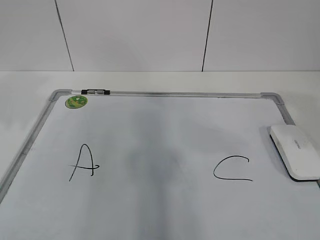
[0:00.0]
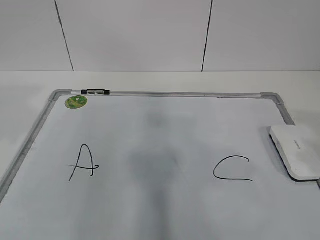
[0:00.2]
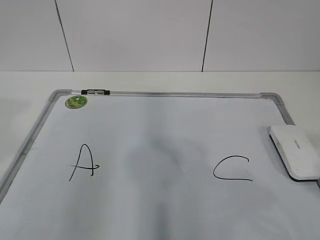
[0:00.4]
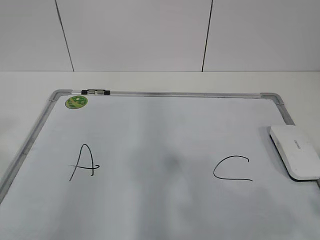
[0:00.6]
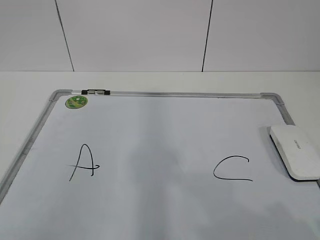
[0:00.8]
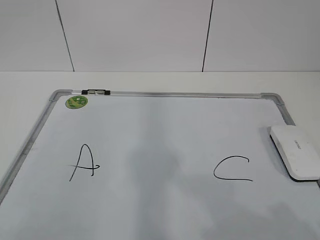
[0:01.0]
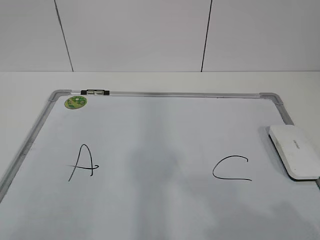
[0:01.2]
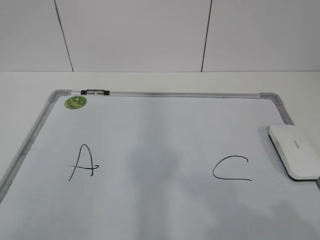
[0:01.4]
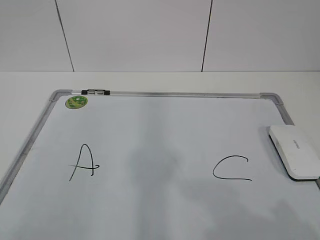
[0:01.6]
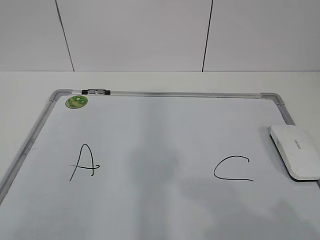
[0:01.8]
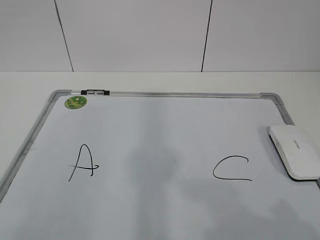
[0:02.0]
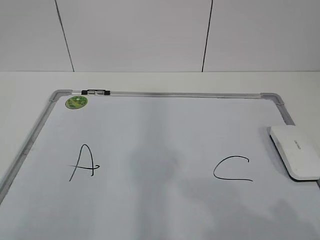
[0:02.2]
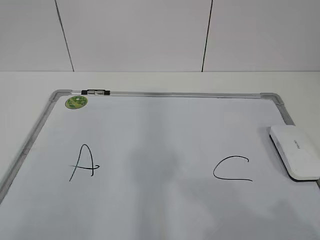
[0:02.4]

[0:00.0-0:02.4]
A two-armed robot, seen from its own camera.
Task of the whole recording: pick up the eraser on the blackboard and erase the letter "B".
0:00.0 to 0:01.2: The right gripper moves backward and downward, approximately 15 cm. Meanwhile the left gripper moves backward, roughly 25 cm.
0:01.2 to 0:02.4: Both grippers stay about where they are.

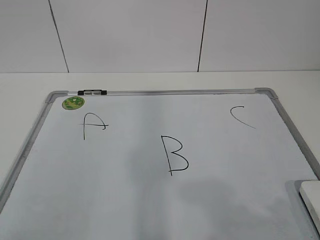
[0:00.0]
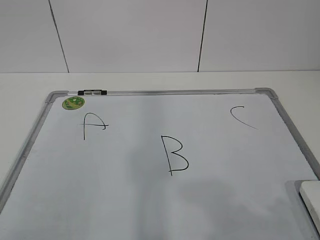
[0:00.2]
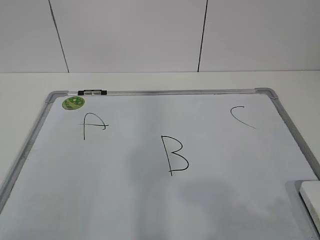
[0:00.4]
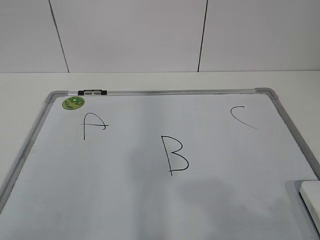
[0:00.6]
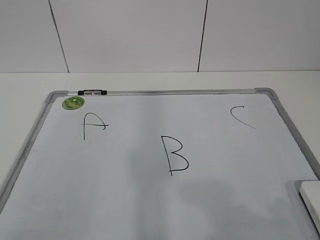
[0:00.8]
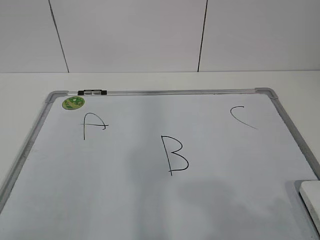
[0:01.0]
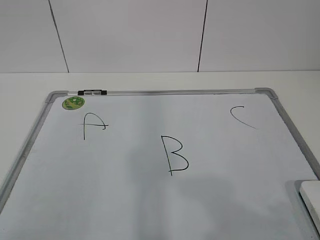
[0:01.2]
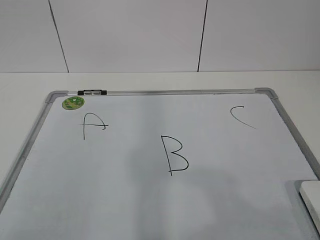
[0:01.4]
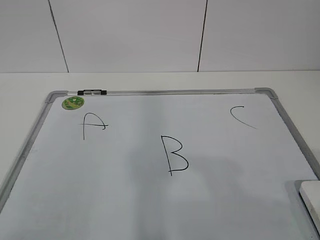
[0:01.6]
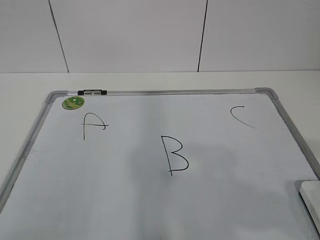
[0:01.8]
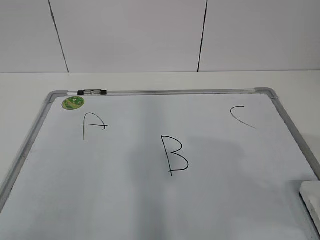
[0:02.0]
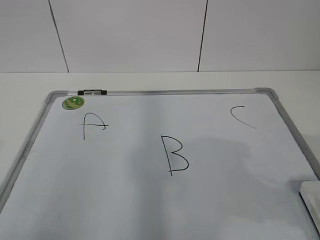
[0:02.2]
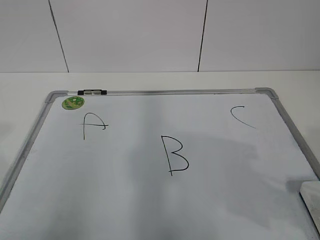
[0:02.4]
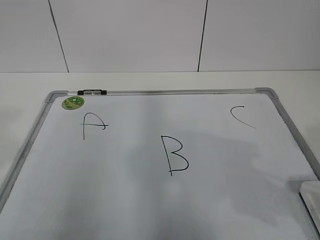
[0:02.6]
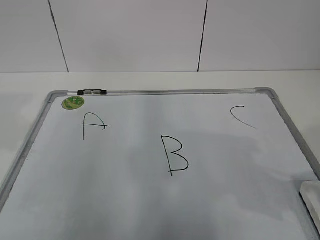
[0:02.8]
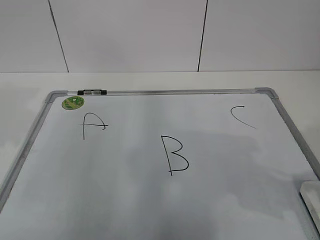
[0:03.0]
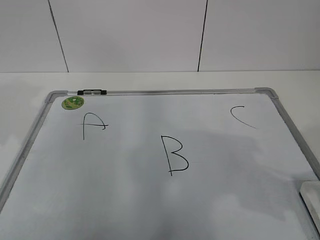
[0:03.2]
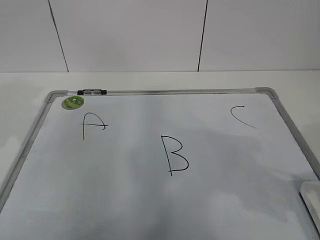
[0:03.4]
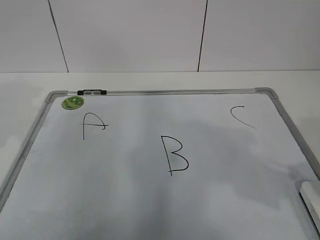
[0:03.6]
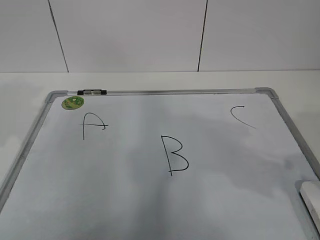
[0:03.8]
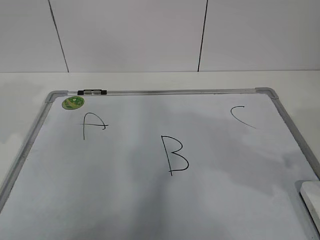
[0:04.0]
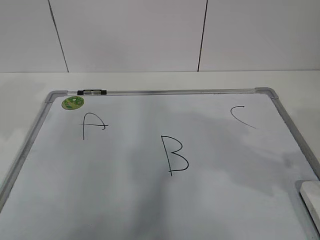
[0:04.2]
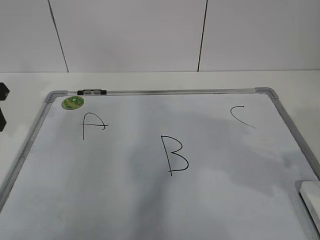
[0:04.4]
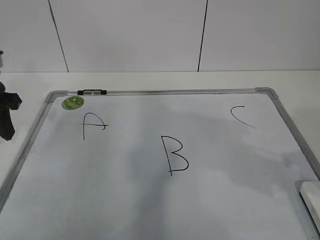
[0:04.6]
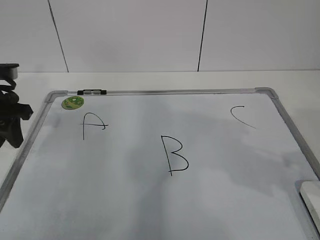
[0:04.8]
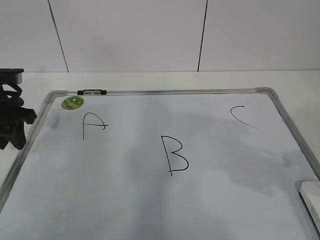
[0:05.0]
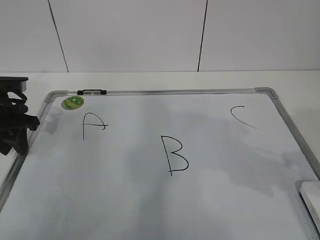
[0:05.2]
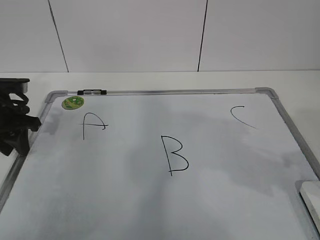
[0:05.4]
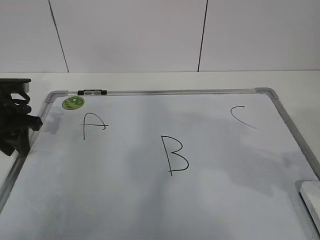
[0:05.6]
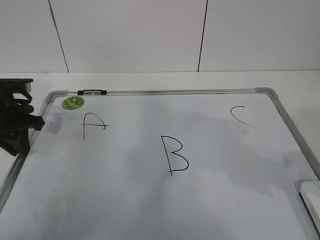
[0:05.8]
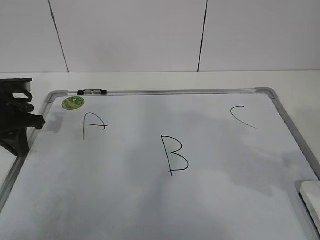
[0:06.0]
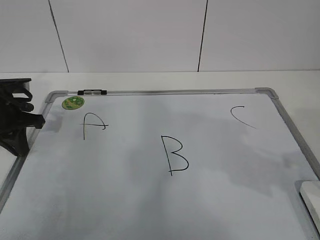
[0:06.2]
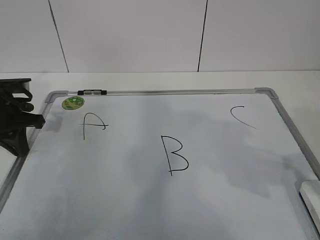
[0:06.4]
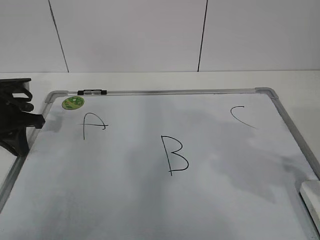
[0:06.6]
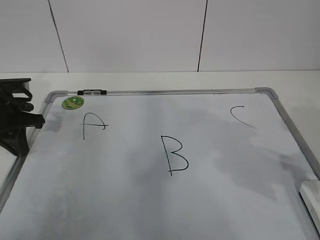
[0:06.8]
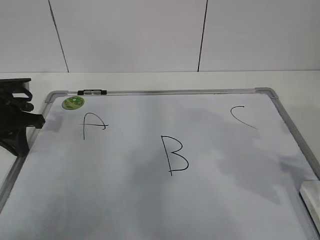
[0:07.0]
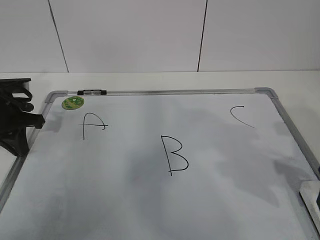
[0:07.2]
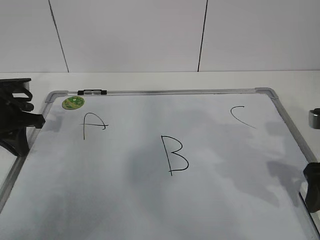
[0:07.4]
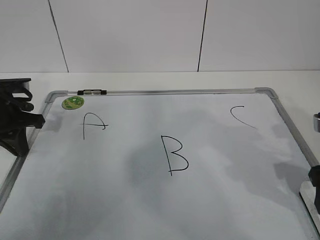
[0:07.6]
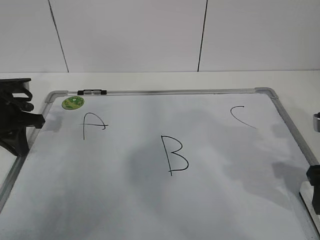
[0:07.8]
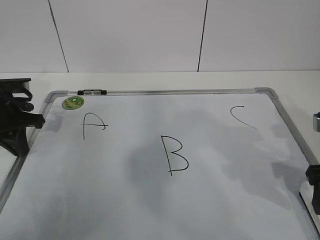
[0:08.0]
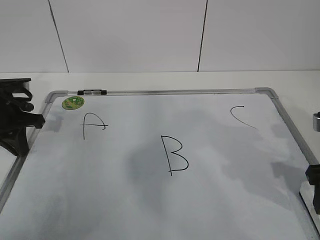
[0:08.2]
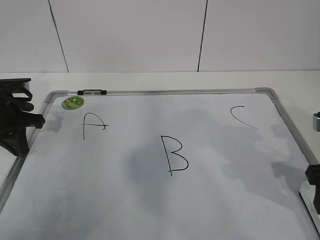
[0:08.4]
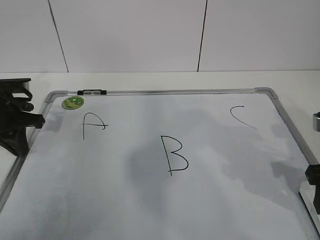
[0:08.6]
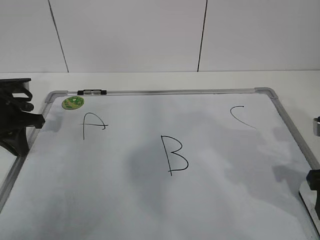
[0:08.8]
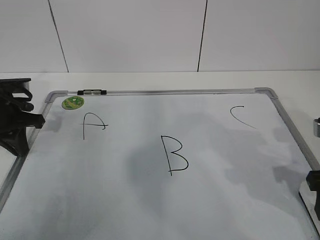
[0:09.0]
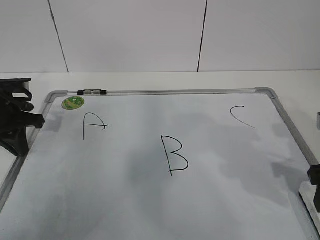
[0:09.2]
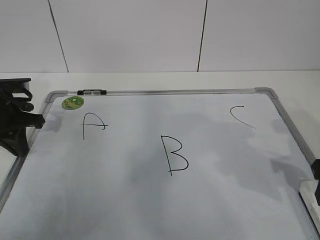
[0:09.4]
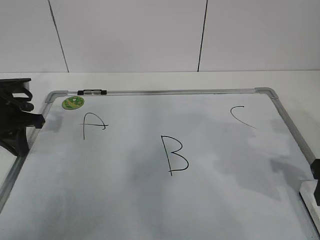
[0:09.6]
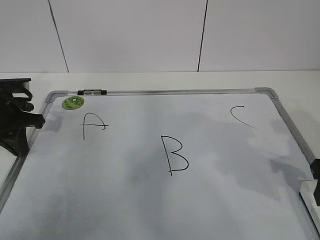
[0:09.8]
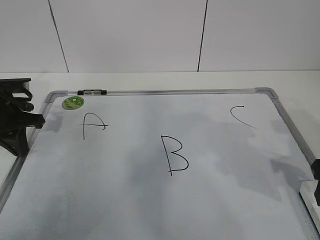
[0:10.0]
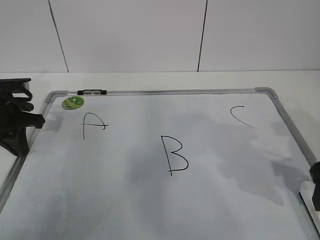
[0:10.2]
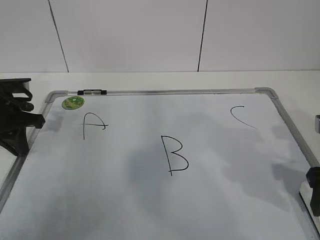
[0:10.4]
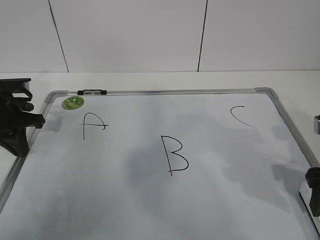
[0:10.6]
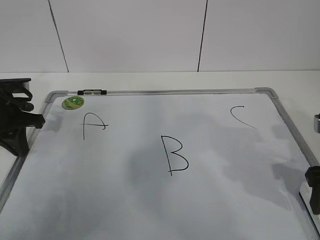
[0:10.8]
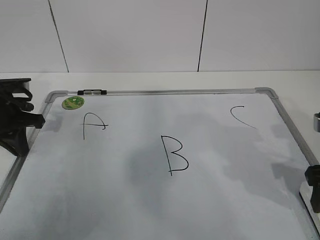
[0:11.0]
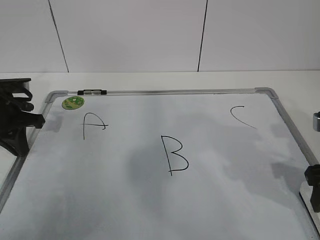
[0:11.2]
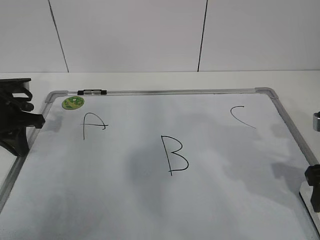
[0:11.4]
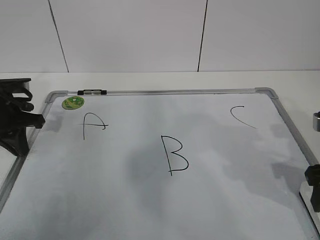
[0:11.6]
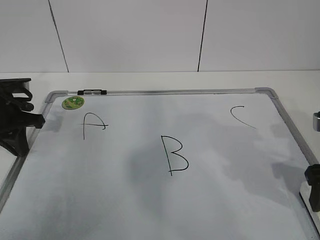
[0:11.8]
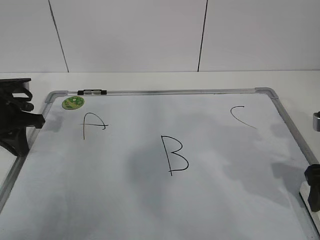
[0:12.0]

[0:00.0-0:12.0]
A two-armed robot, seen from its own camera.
Task of the whole recording: pick up the eraser on the blackboard and erase the letter "B".
Step, 0:00.0 to 0:04.8: Hold the drawing board steady with your left hand.
Step, 0:05.0 to 0:10.6: Grab the eraser with your right hand.
0:01.6 to 0:03.0: The right gripper shifts approximately 10 cm forward, while the left gripper goes some 20 cm forward.
0:03.0 to 0:04.4: The left gripper shifts approximately 10 cm forward.
0:04.4 to 0:06.0: The left gripper goes some 10 cm downward and forward, and closes its fingers.
0:06.0 to 0:07.6: The right gripper heads downward, covering approximately 5 cm, and opens its fingers.

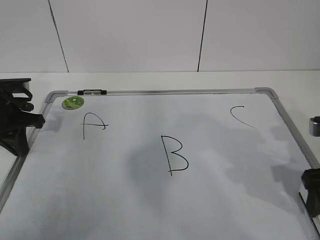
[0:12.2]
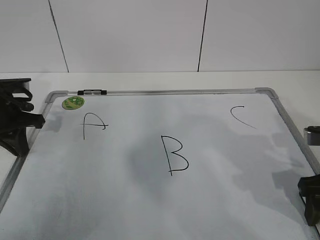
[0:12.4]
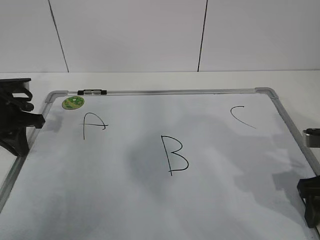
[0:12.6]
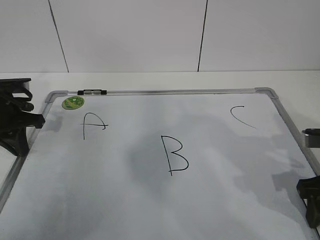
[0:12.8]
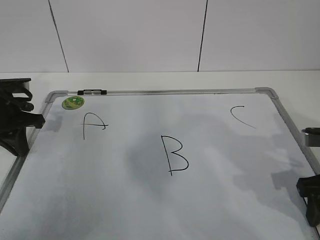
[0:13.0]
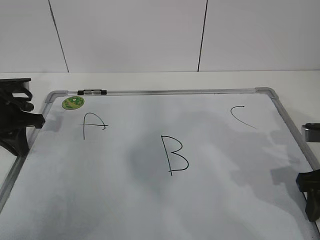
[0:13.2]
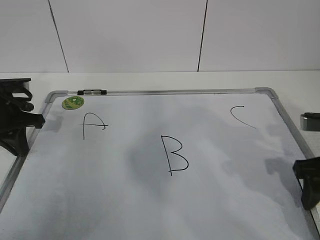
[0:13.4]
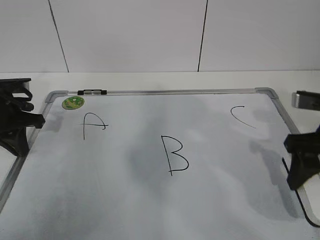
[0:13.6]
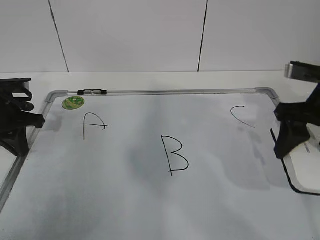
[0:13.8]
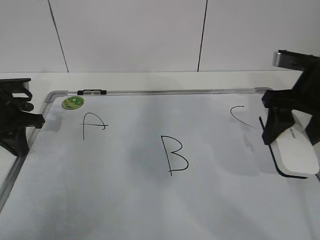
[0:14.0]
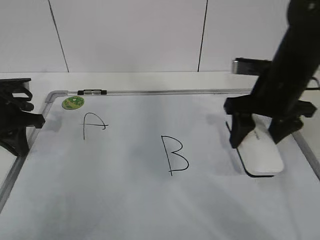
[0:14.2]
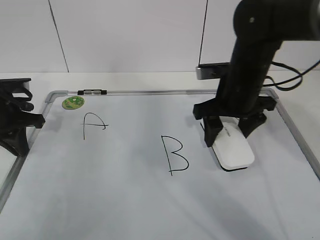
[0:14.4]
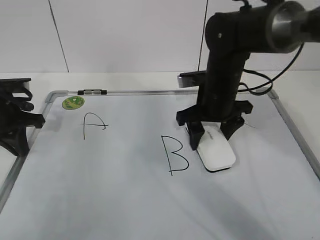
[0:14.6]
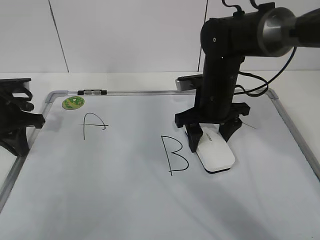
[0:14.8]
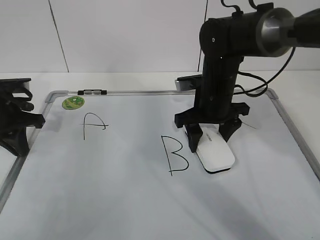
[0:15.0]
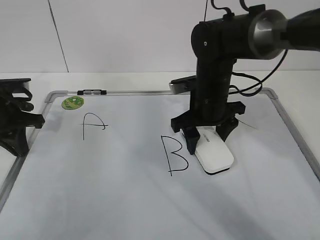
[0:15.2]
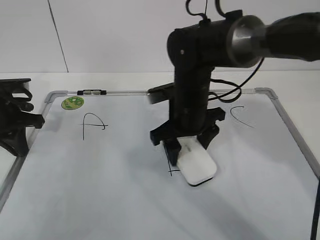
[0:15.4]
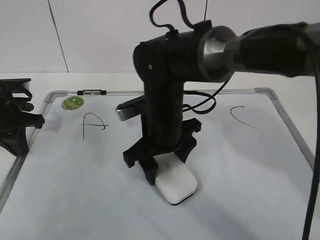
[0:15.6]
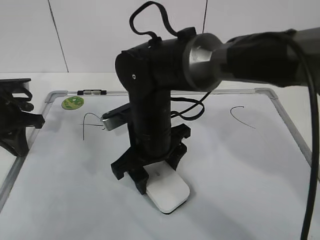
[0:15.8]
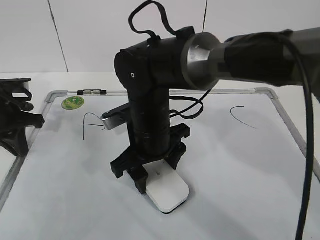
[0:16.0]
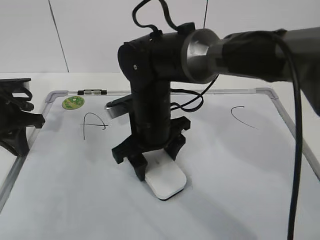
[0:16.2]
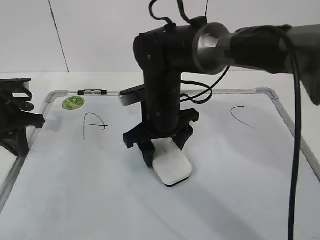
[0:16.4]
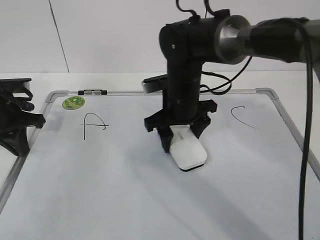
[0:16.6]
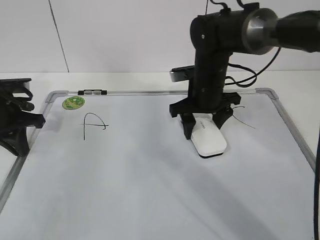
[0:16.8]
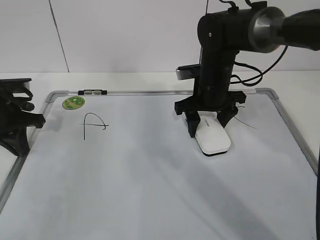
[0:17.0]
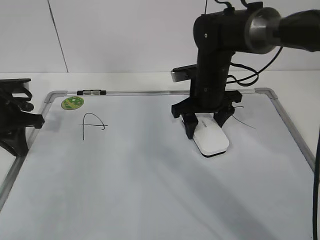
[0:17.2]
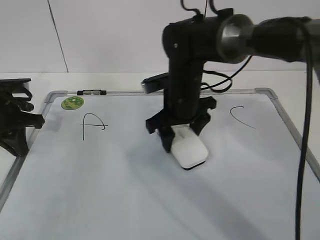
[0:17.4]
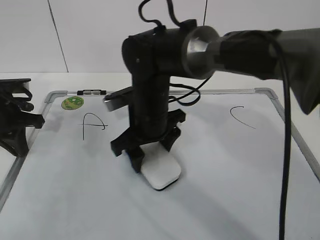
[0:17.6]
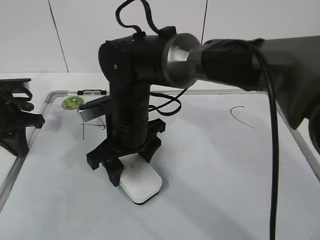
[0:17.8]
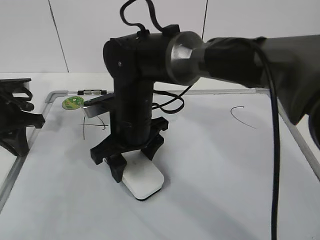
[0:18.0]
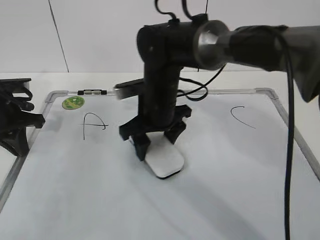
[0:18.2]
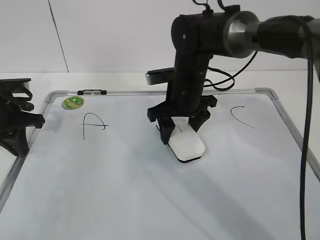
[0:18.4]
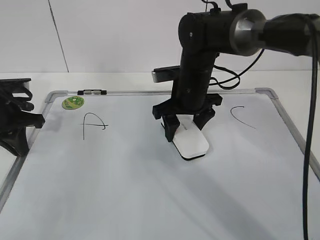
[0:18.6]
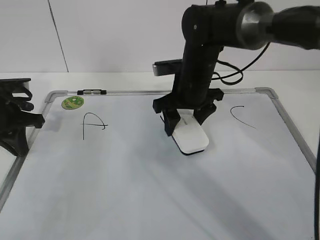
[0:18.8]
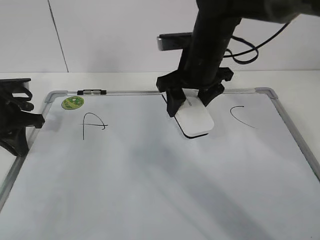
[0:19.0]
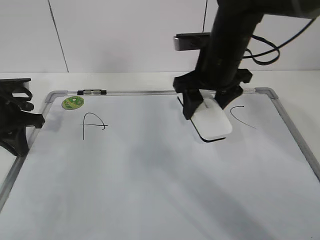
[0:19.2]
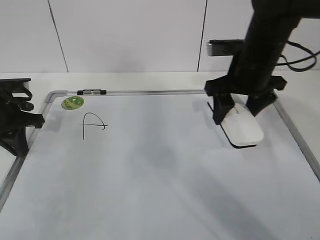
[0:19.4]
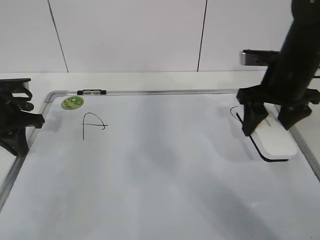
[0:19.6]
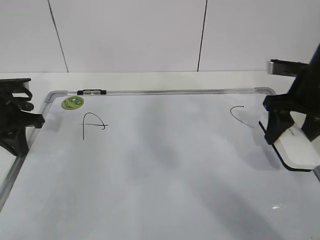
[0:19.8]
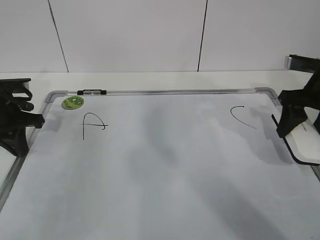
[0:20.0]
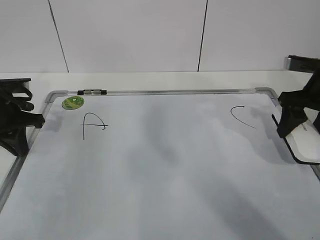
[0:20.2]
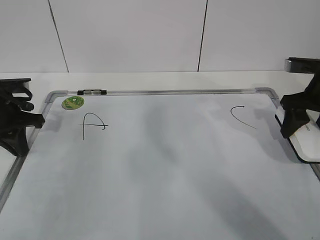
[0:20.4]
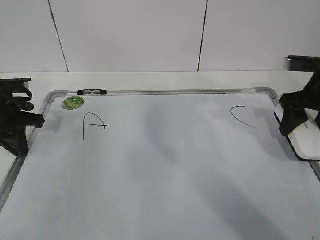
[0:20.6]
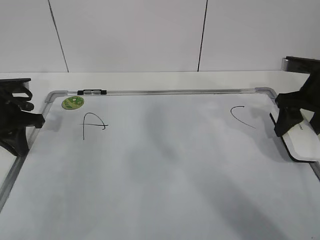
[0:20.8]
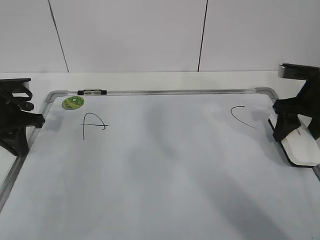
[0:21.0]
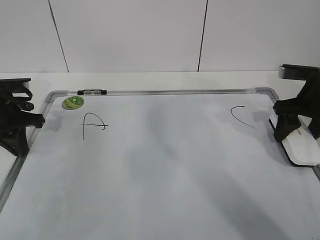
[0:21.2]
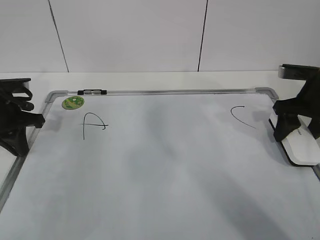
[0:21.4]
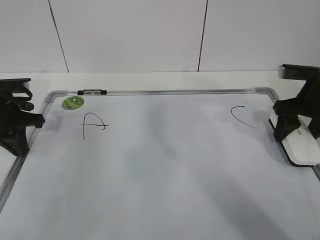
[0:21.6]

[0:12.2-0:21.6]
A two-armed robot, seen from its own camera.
Task of the whole recording: pick up the eraser on the blackboard and erase the letter "B".
Step, 0:12.2 to 0:15.2: Erase the letter B with your right hand.
Step, 0:15.4 to 0:19.0: Put down the eraser with your right hand.
0:12.2 to 0:13.8: The right gripper is displaced forward and upward by about 10 cm, and closes up.
0:13.8 to 0:15.4: The right gripper heads to the left, forward and downward, covering about 20 cm.
0:15.4 to 0:17.0: The right gripper heads forward and to the right, covering approximately 10 cm.
0:17.0 to 0:18.4: The right gripper shifts roughly 5 cm to the left.
0:18.4 to 0:20.0: The right gripper heads to the right, covering approximately 25 cm.
0:20.0 to 0:21.6: The grippers make only small movements.
